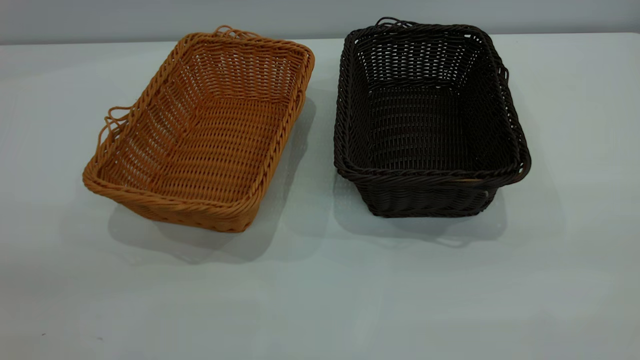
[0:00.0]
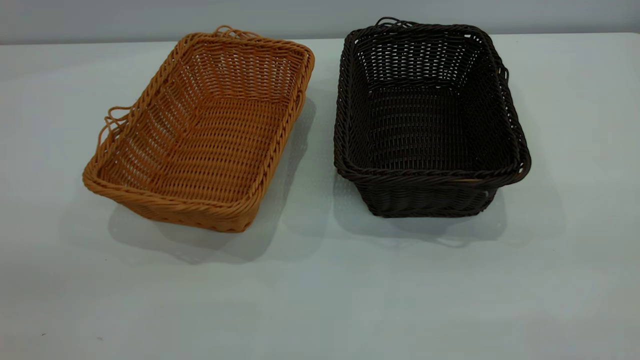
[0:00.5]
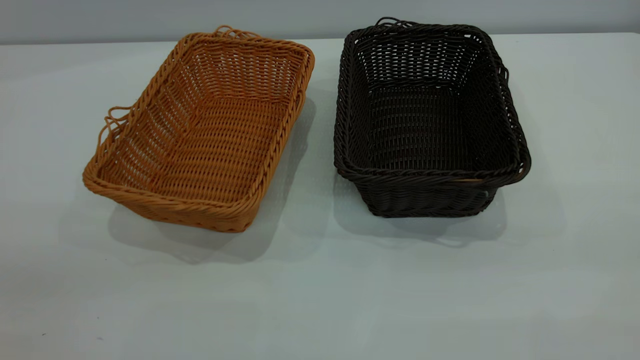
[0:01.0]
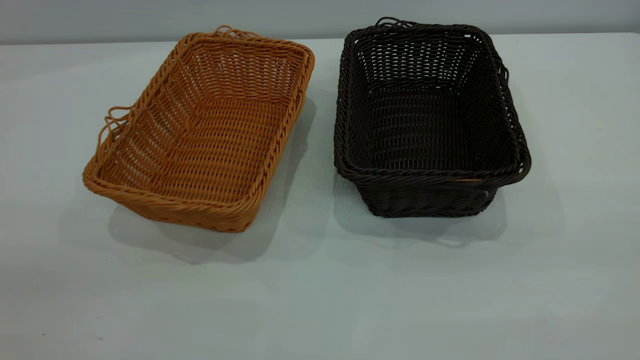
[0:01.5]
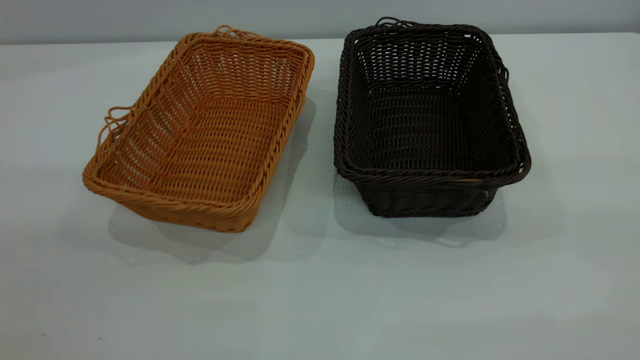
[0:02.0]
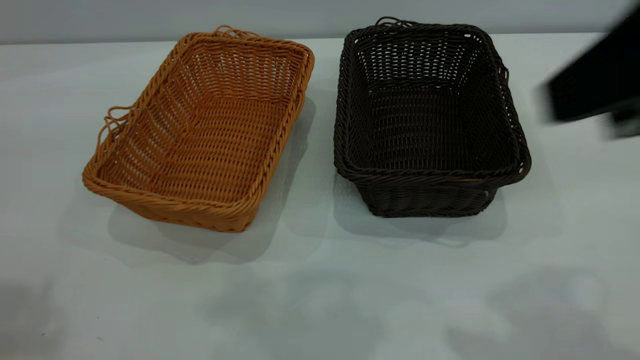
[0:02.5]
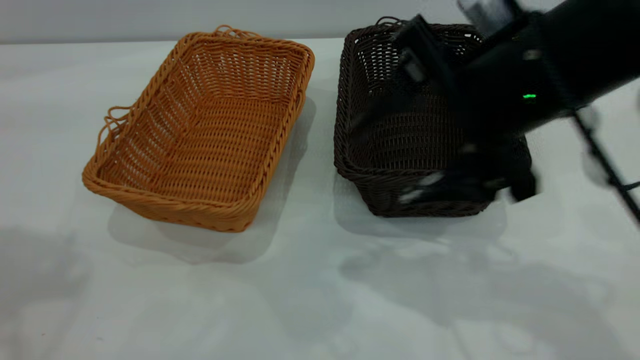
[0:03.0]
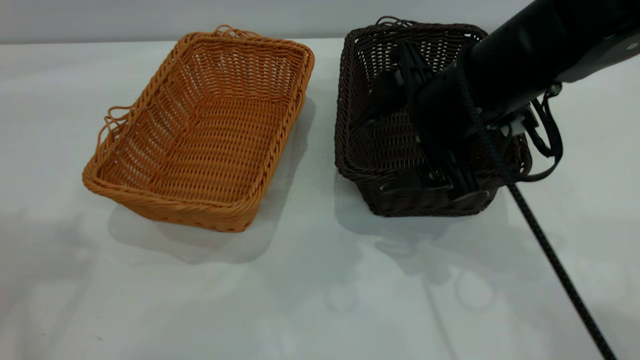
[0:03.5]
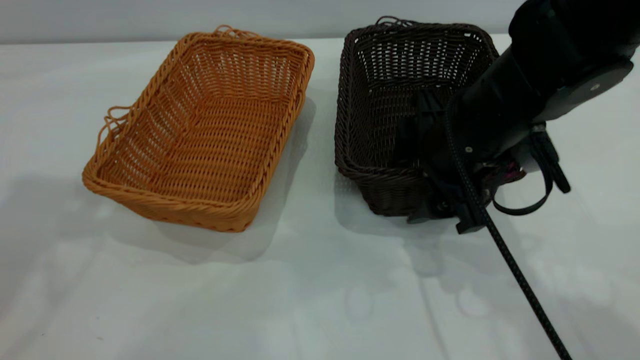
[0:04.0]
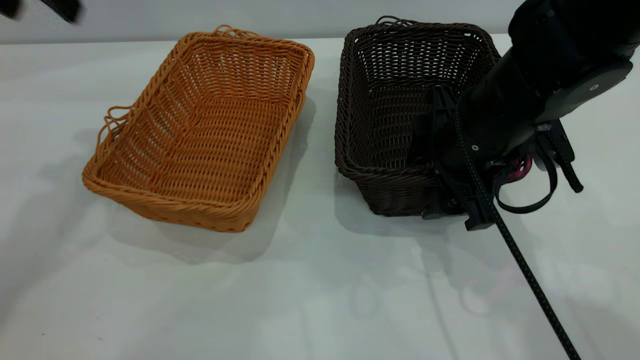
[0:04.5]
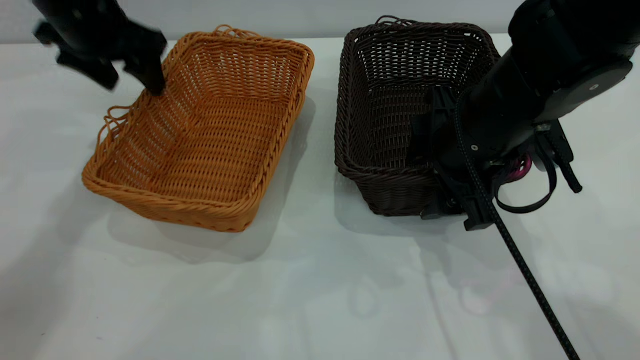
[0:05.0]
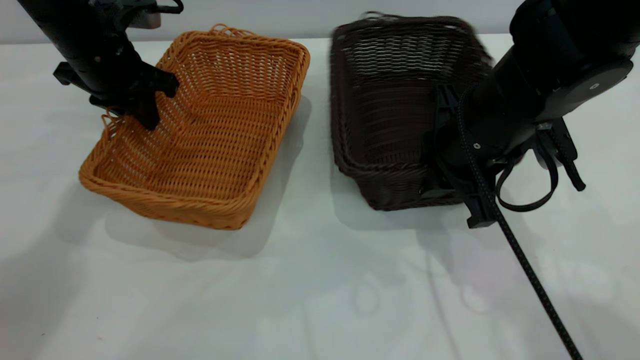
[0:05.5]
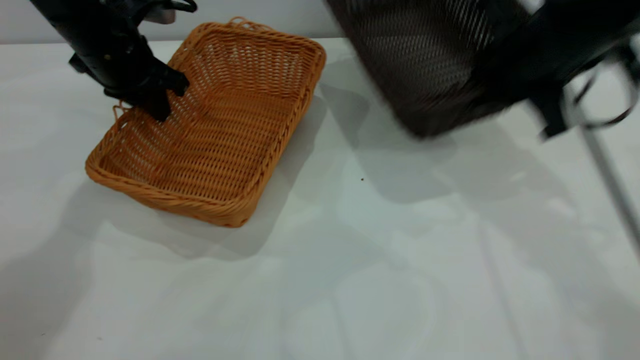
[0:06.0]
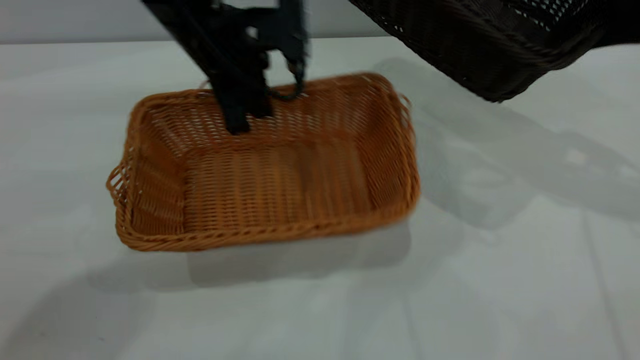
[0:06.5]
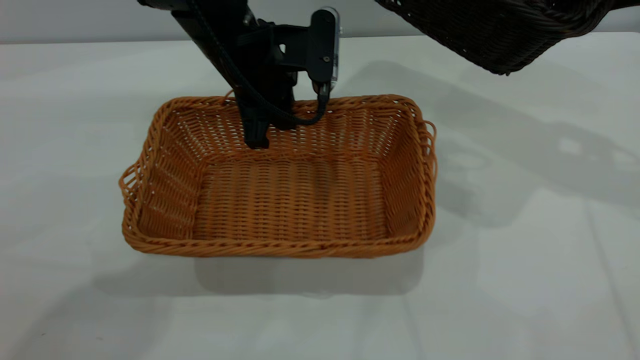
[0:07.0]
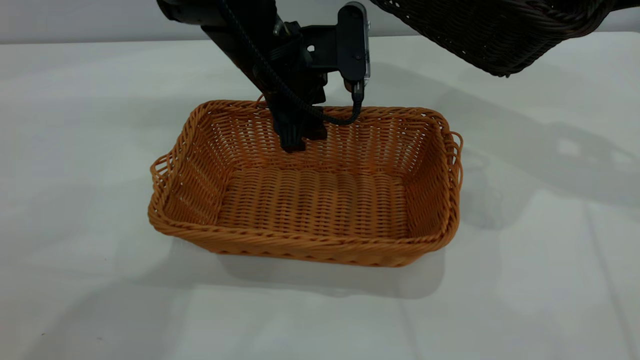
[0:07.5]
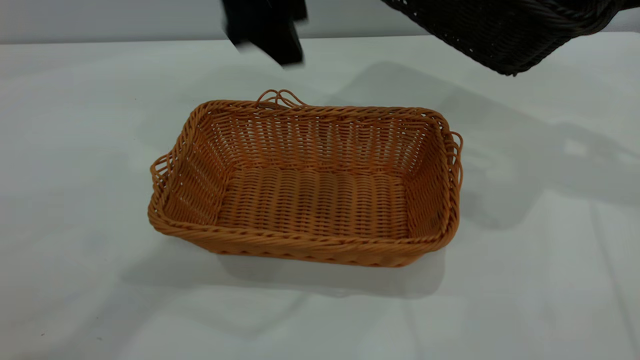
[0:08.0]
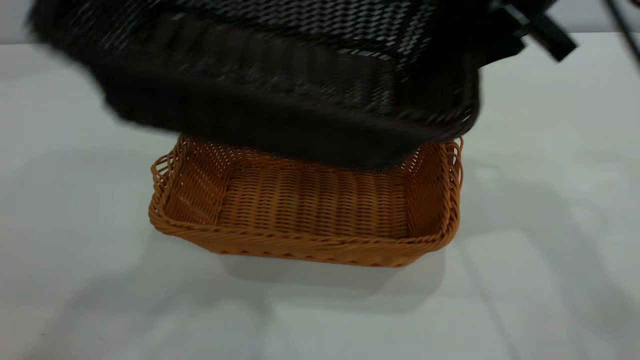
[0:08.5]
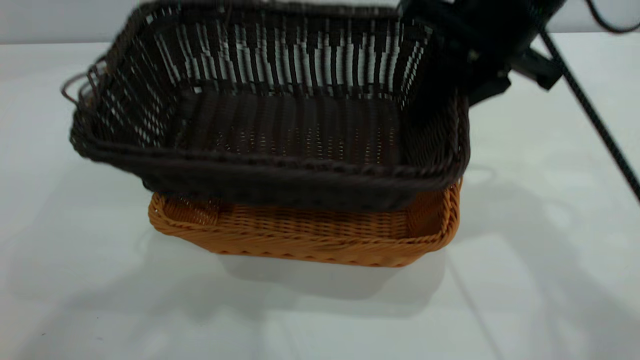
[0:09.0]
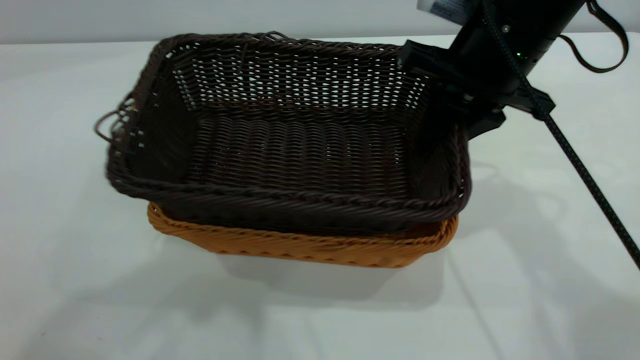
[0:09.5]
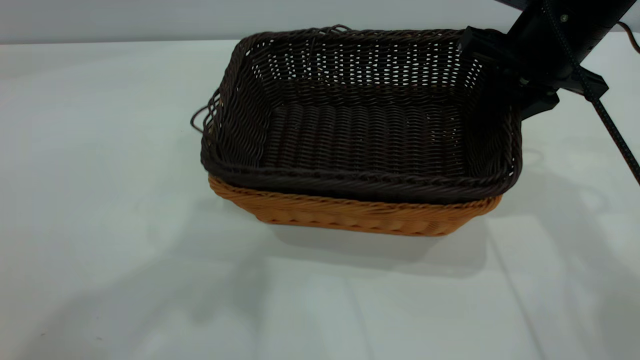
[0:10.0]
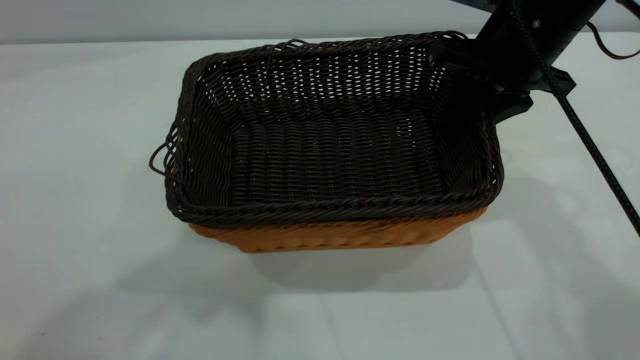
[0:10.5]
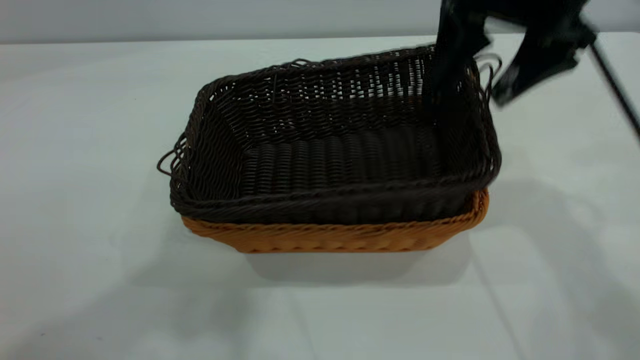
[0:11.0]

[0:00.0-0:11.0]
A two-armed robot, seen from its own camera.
Task of the whole recording: the left gripper grasp the brown basket and place it in the center of the table, the right gripper grasp the black basket and place it inside the brown one.
Step, 0:00.0 to 0:05.5: Pick up the light basket with the right gripper.
Step, 0:06.0 to 0:08.0: Place the light-colored basket in the center.
0:02.0 to 0:03.5: The right gripper heads forward, downward and to the left, covering some 35 cm.
0:03.5 to 0:05.5: The right gripper closes its fingers. Meanwhile the left gripper heads downward and forward, covering about 30 cm, and closes.
0:05.5 to 0:07.5: The left gripper moves to the right, about 20 cm, and opens up. The right gripper goes roughly 20 cm to the right and upward.
0:07.5 to 0:09.0: The right gripper travels to the left by roughly 15 cm, while the left gripper is displaced upward and backward by about 40 cm.
0:09.0 to 0:11.0: The right gripper opens its fingers.

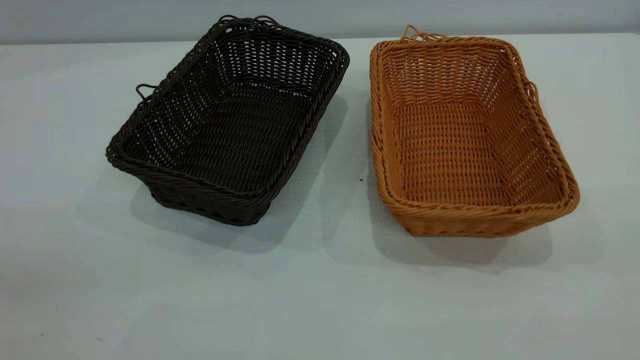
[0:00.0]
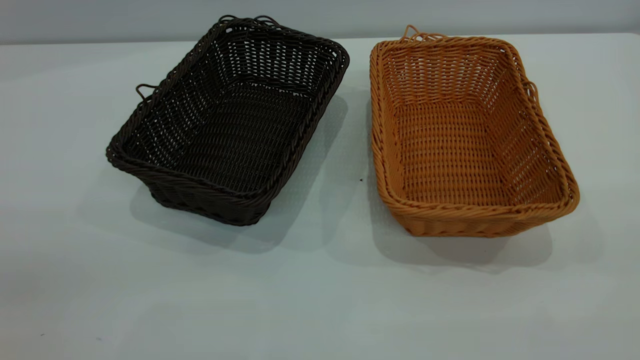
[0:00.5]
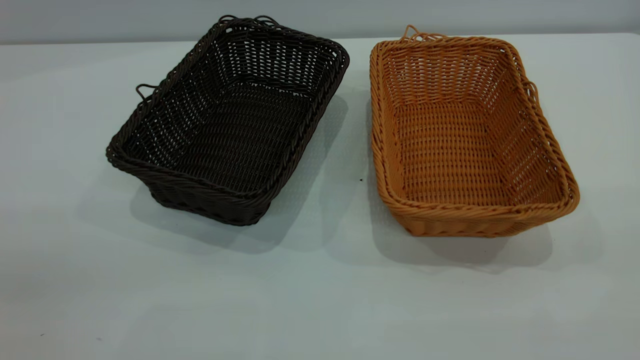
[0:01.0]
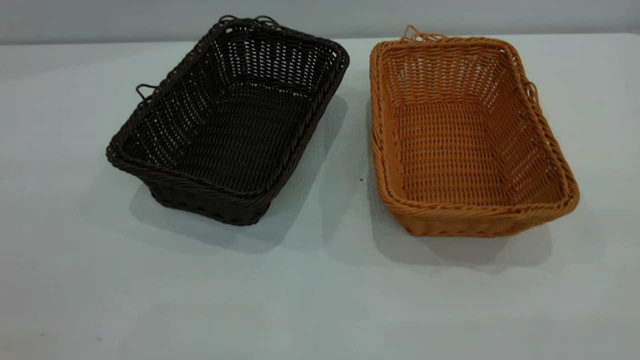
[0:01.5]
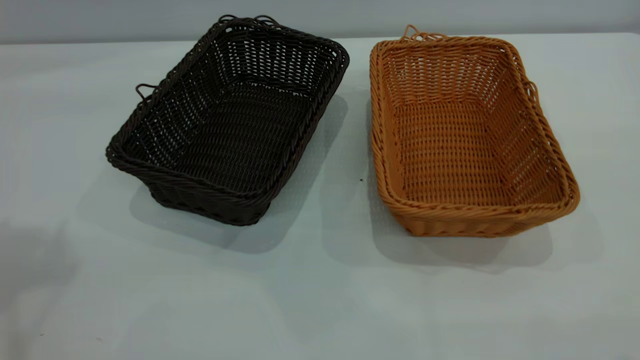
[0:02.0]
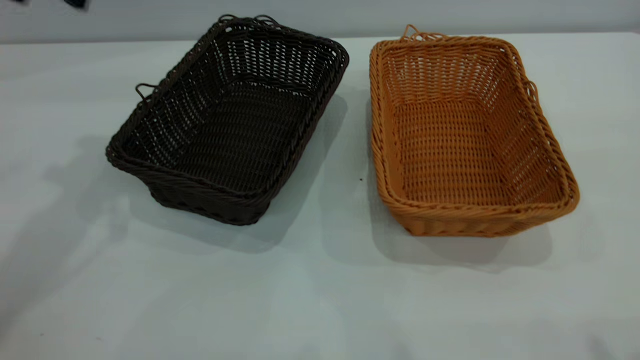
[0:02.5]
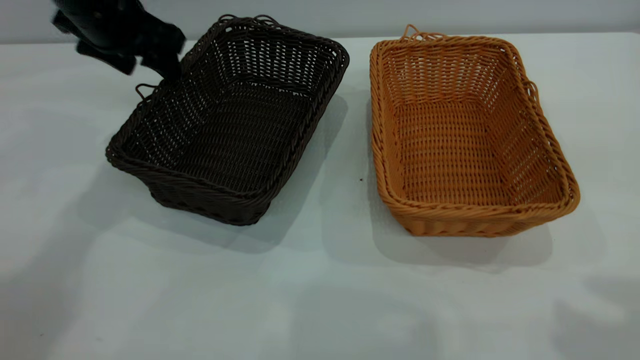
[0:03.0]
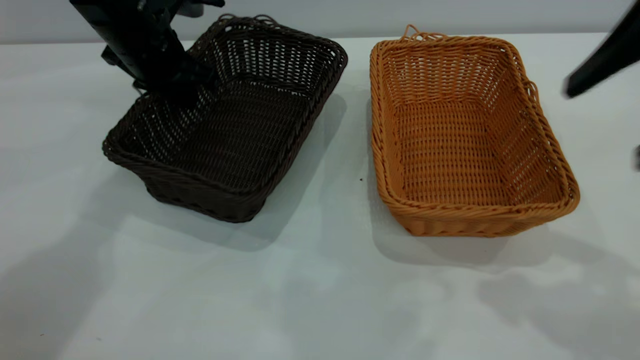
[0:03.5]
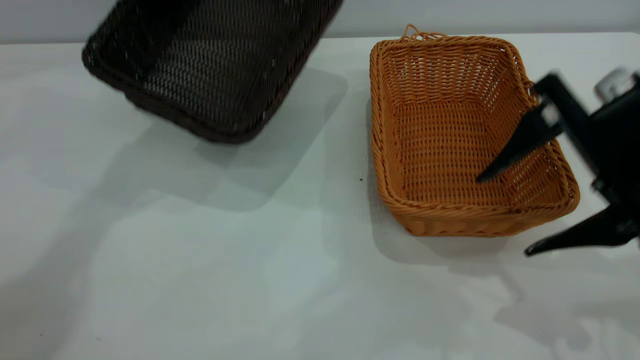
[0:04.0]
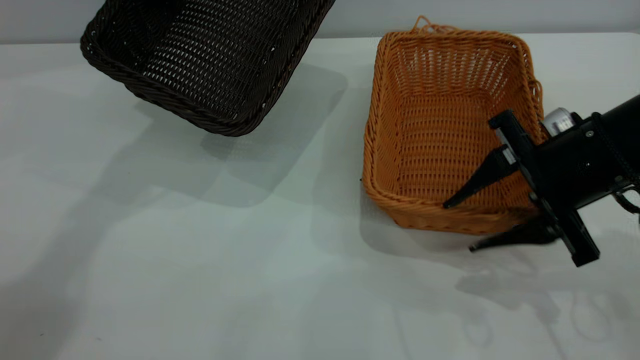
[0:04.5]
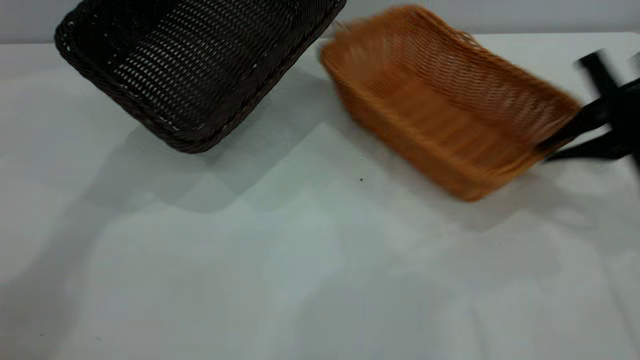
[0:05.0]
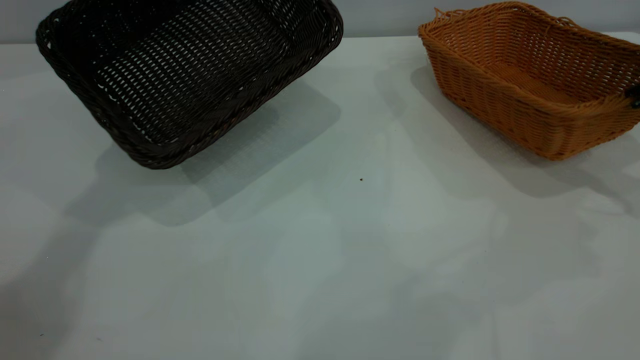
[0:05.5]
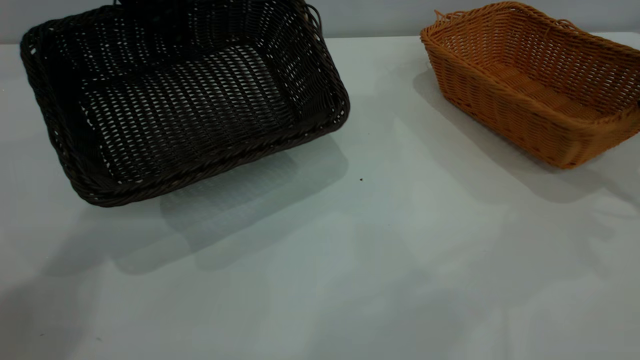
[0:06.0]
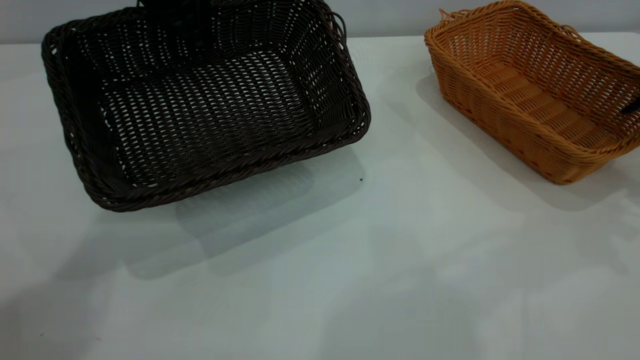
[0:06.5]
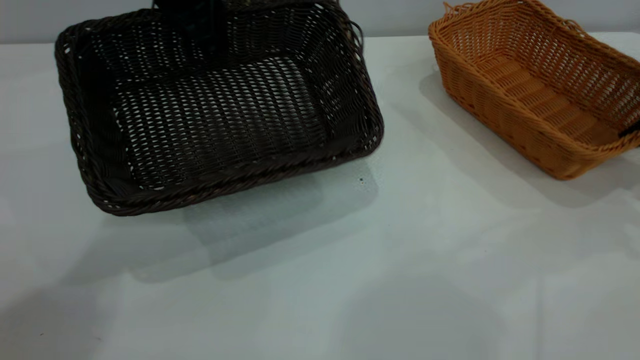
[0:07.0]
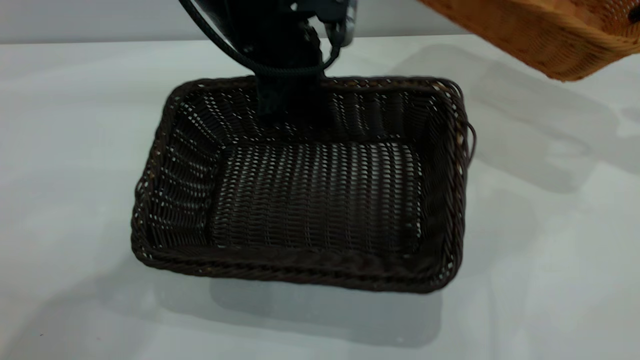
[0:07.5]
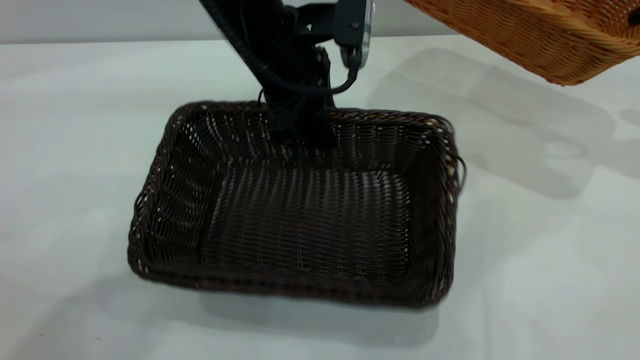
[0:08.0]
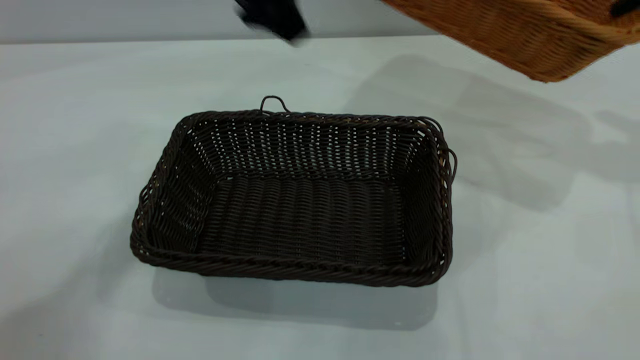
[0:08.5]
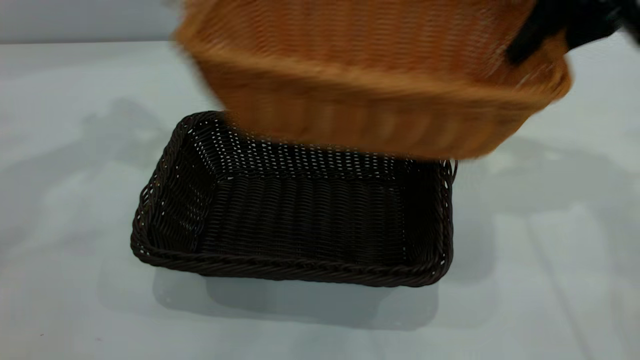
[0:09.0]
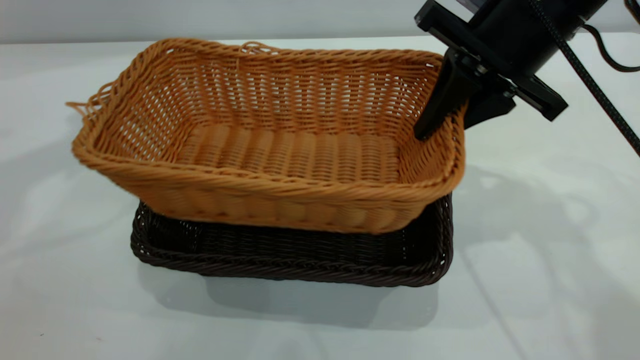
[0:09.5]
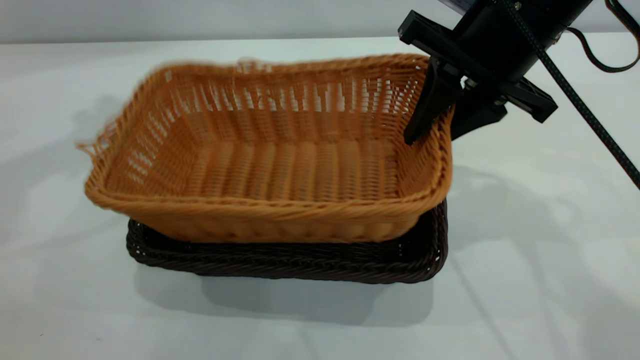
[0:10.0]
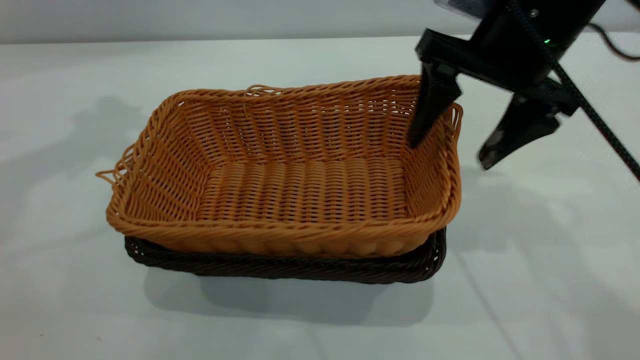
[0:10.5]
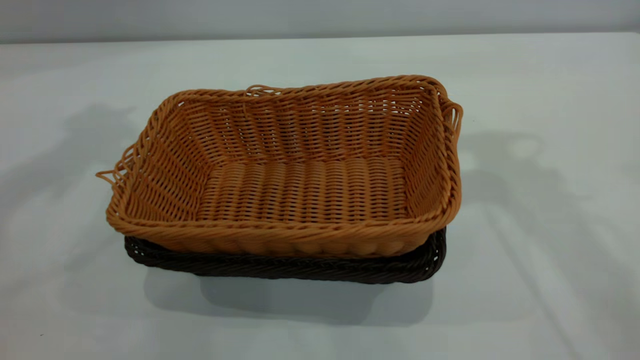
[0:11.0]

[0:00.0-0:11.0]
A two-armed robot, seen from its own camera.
Task of the whole recording: the left gripper grasp the black basket and place it in the center of the table, the right gripper grasp the brown basket and place it inside the black one.
Step, 0:00.0 to 0:07.0: Pick up the light basket with the right gripper.
Step, 0:07.5 to 0:08.0: Move the dark basket to the center of view.
Step, 0:08.5 to 0:10.5: Place the light basket on the dark basket.
0:02.0 to 0:03.5: The right gripper goes about 20 cm forward and downward. The left gripper travels downward, forward and to the right by roughly 35 cm, and closes its fingers.
0:03.5 to 0:05.5: The left gripper travels upward by about 10 cm. Meanwhile the right gripper moves to the right, forward and downward, approximately 20 cm, and closes up.
0:05.5 to 0:07.5: The left gripper heads to the right, backward and downward, covering some 20 cm; the right gripper shifts approximately 5 cm forward, and opens, then closes again.
0:07.5 to 0:09.0: The left gripper is displaced to the left and upward by about 30 cm, and opens, while the right gripper heads to the left, covering roughly 20 cm.
0:09.0 to 0:11.0: The right gripper heads upward, covering roughly 15 cm, and opens; the left gripper travels upward by about 10 cm.
